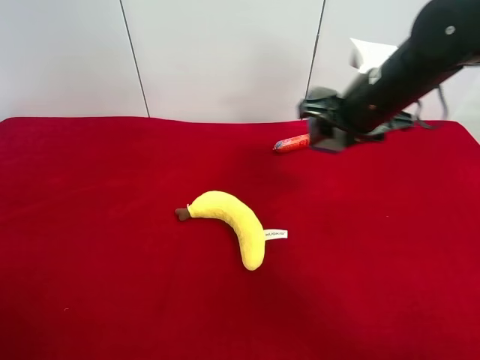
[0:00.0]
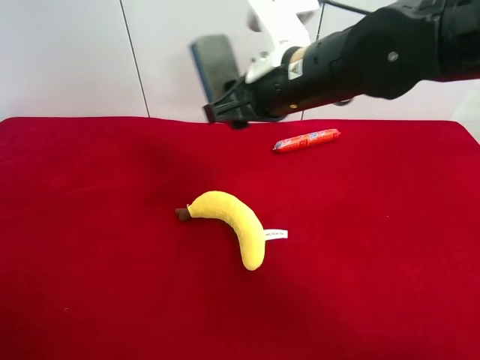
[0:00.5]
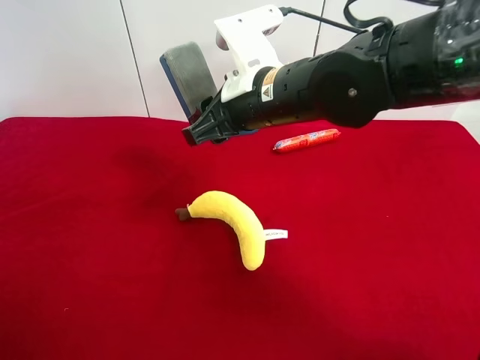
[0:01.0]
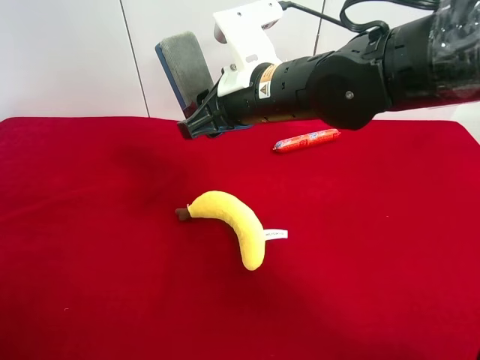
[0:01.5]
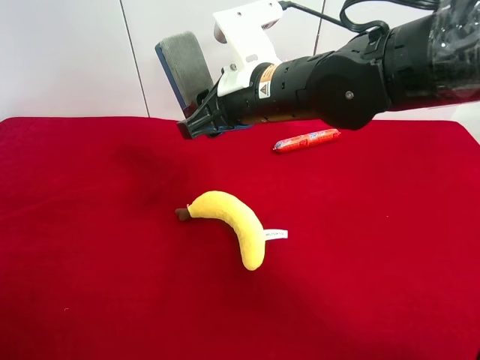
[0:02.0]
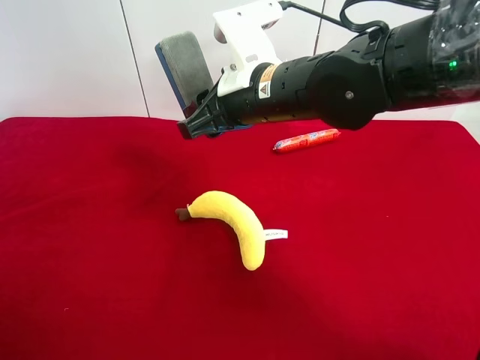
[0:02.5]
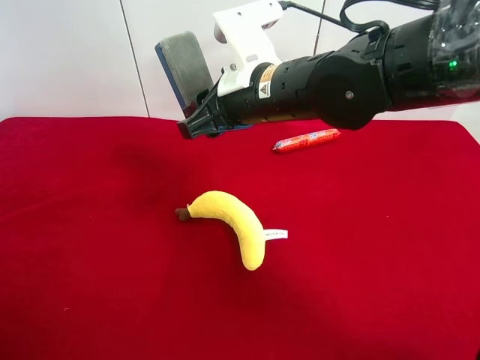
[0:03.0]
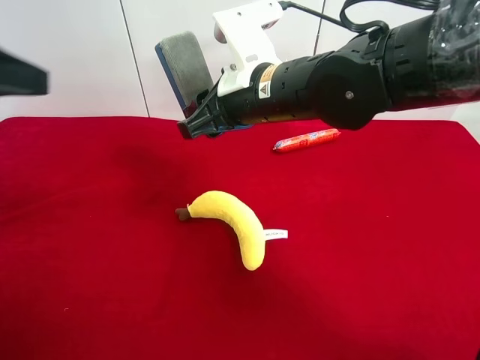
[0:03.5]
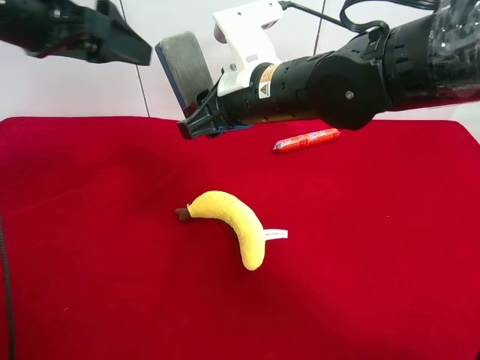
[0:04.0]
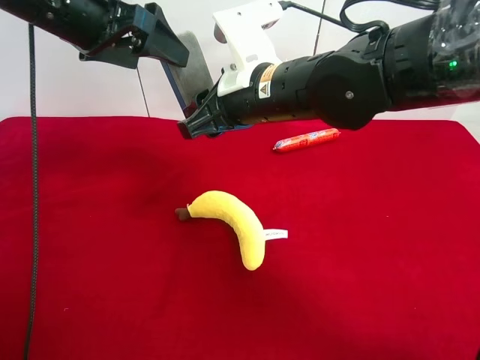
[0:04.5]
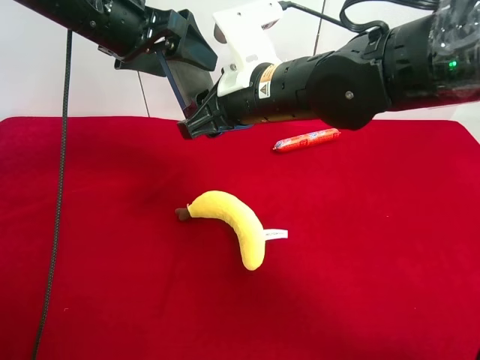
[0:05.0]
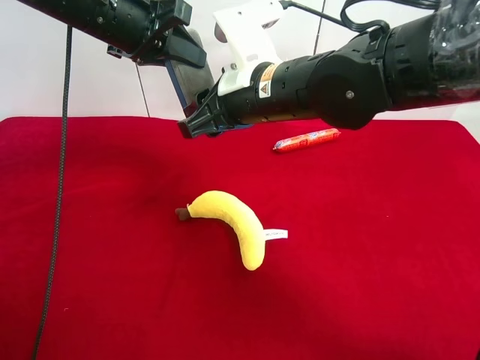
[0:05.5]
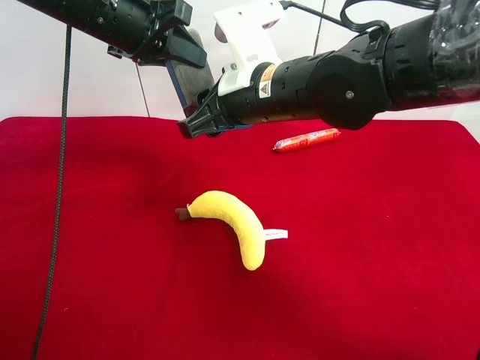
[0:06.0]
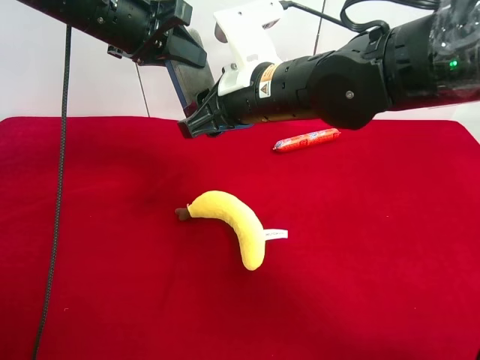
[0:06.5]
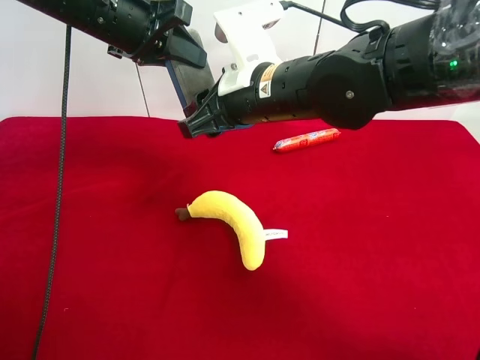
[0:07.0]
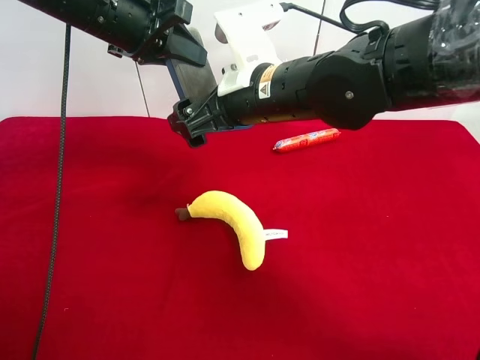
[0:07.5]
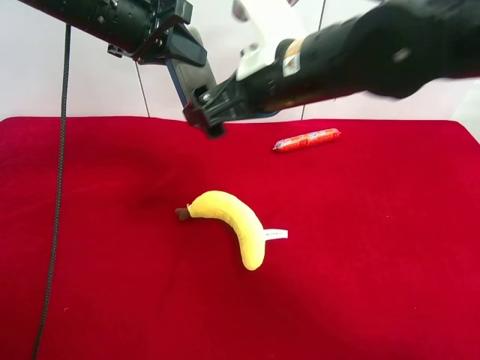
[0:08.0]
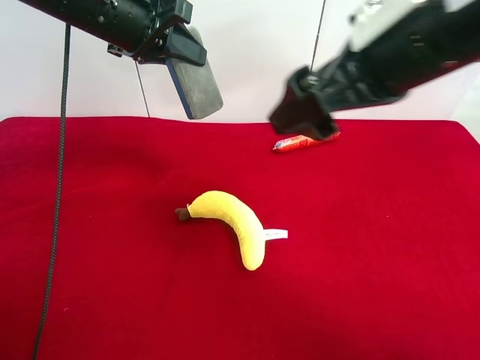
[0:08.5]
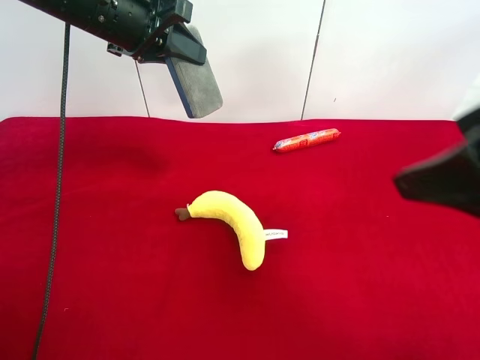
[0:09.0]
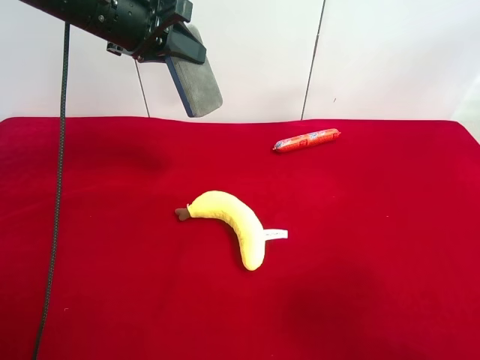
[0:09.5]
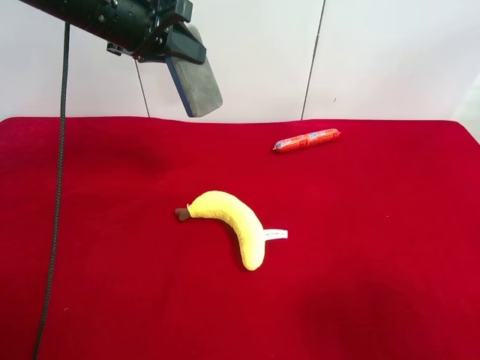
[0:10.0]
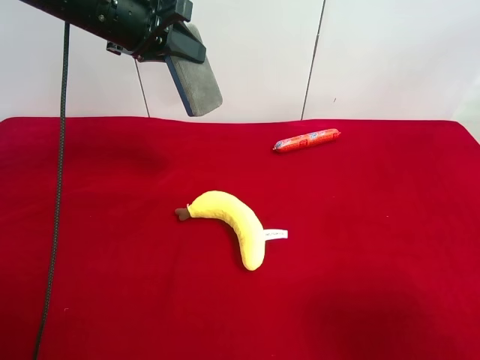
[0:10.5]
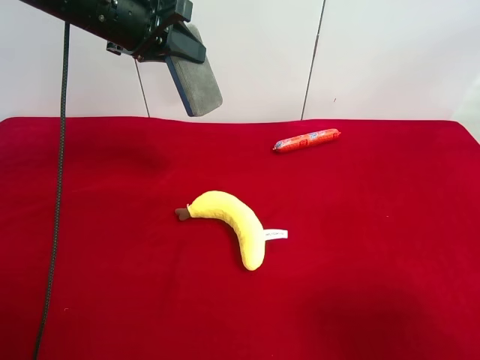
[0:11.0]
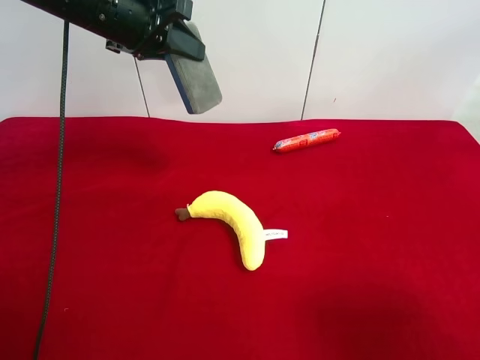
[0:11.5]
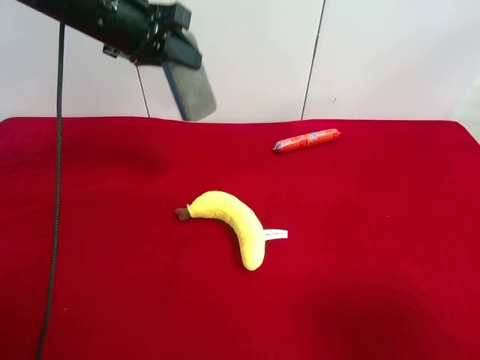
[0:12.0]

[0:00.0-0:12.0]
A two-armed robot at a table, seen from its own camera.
Task of the whole recording: use the right gripper to pick up the item and transfer it from the right gripper to the left gripper.
Step, 0:00.0 to 0:07.0: Pass the blue blackboard erasure to the left gripper.
0:00.0 to 0:02.0: The right gripper travels to the left by some 10 cm.
0:02.0 to 0:04.0: The left gripper moves forward, some 30 cm.
0:04.0 to 0:06.0: The left gripper goes about 10 cm forward and to the right, and closes.
0:06.0 to 0:08.0: The right gripper shifts by some 5 cm, and opens its fingers.
0:08.0 to 0:10.0: The right gripper goes some 35 cm backward and to the right.
0:10.0 to 0:12.0: The grippers stay close to where they were, moving slightly.

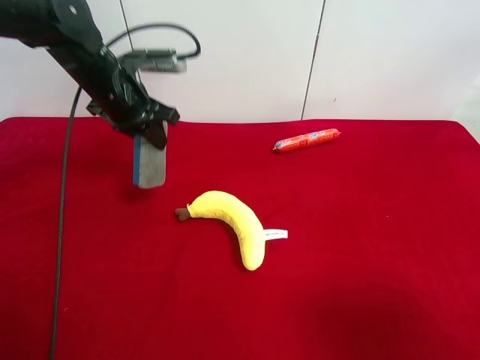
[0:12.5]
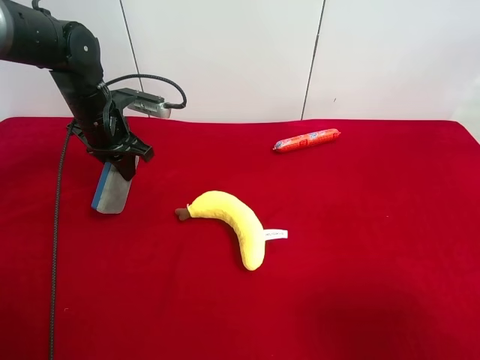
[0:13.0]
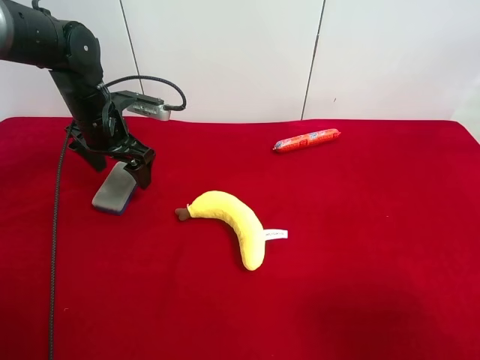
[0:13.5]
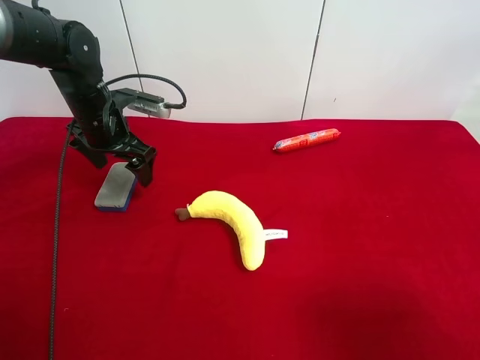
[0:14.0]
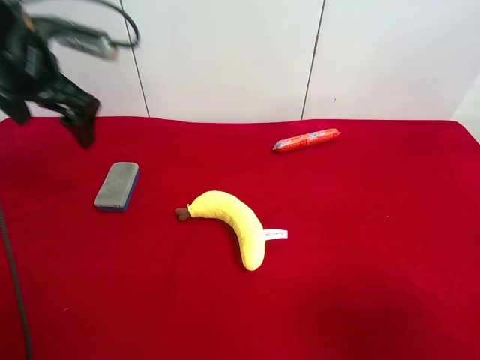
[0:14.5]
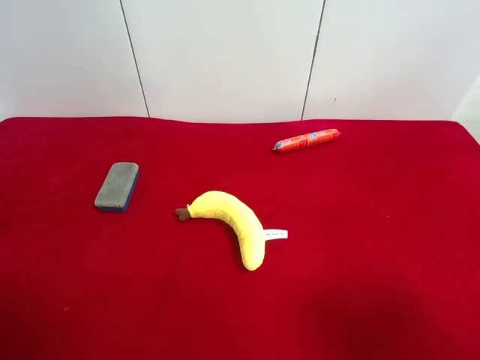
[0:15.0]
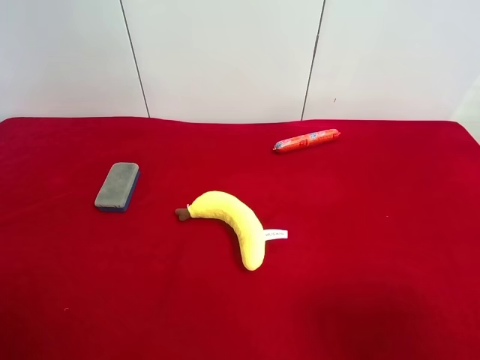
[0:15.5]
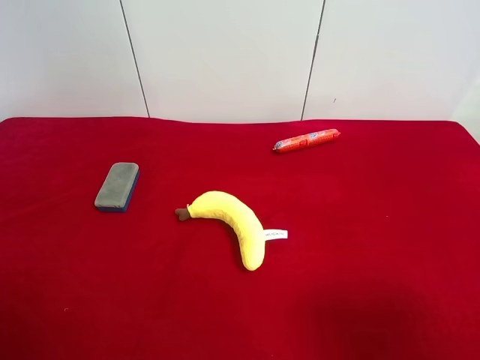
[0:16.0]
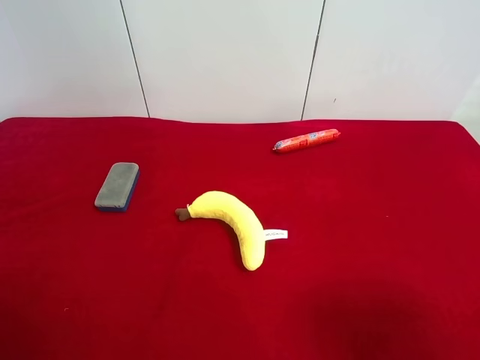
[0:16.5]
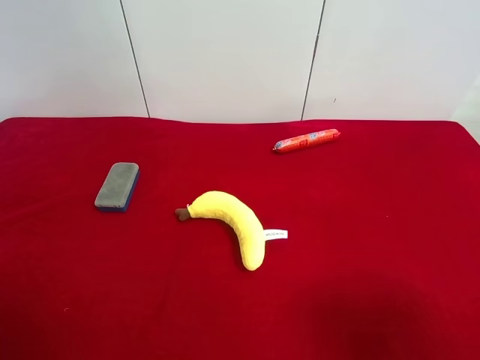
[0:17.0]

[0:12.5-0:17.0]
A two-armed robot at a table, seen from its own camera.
Task of the whole recording: use the right gripper to pick up the item and transfer it from the right gripper to the left gripper.
0:12.5 to 0:14.5: The left gripper heads upward, backward and to the left, covering about 15 cm, and opens its fingers.
0:14.5 to 0:17.0: The left gripper travels backward by approximately 30 cm.
